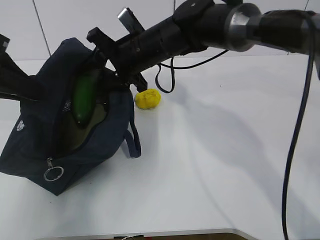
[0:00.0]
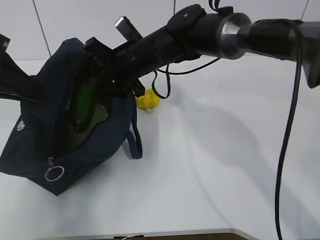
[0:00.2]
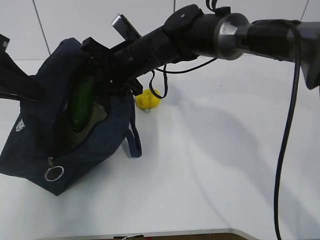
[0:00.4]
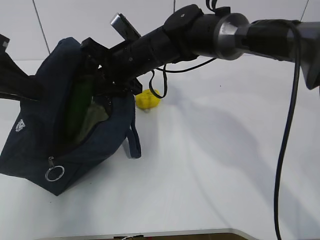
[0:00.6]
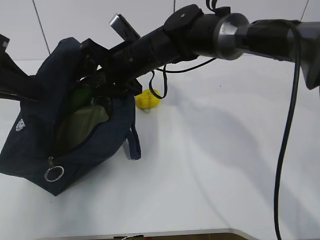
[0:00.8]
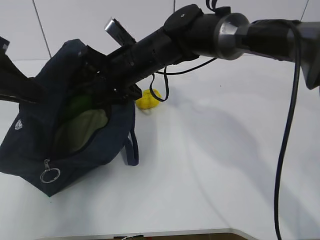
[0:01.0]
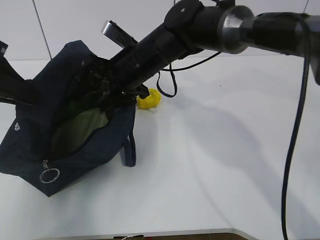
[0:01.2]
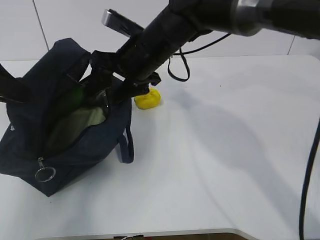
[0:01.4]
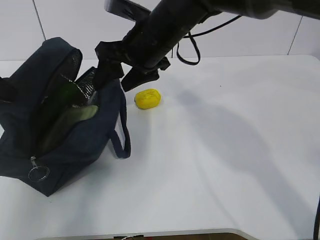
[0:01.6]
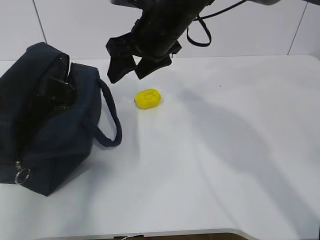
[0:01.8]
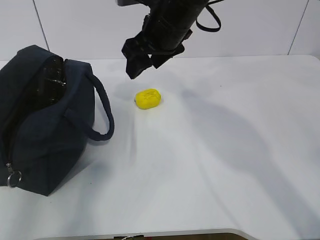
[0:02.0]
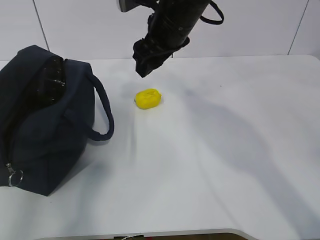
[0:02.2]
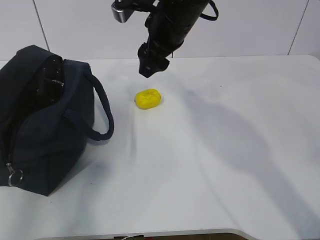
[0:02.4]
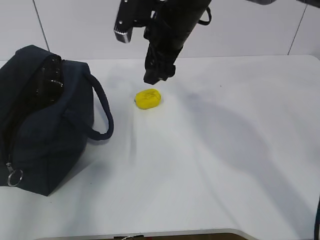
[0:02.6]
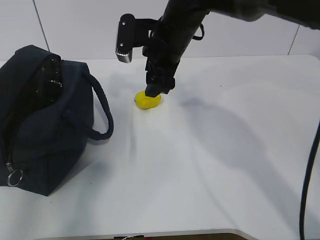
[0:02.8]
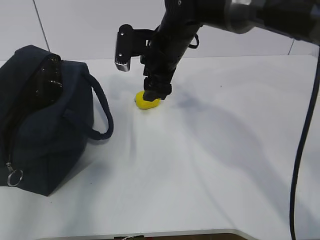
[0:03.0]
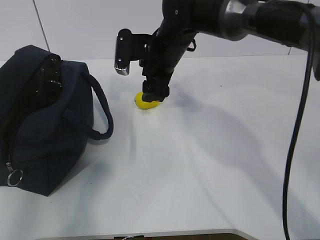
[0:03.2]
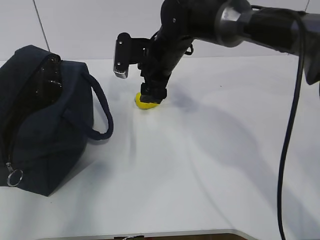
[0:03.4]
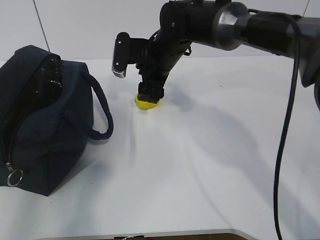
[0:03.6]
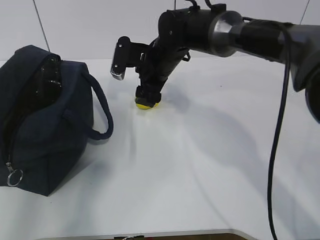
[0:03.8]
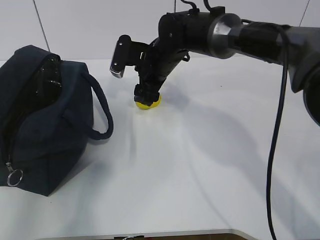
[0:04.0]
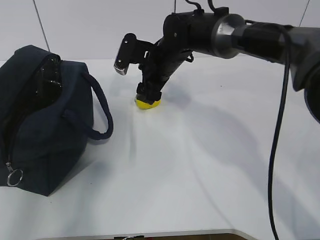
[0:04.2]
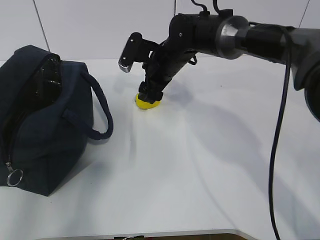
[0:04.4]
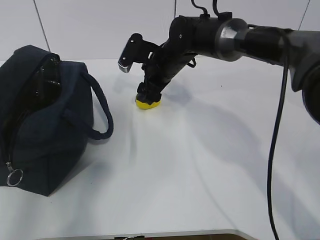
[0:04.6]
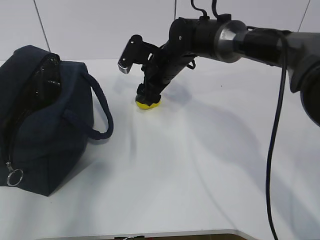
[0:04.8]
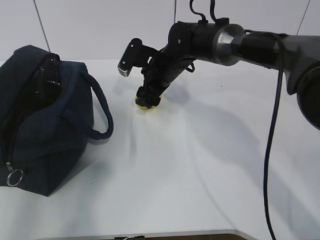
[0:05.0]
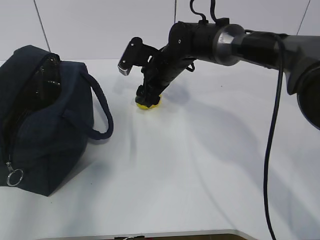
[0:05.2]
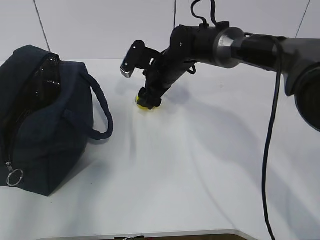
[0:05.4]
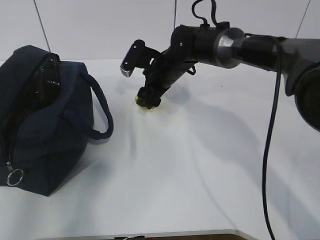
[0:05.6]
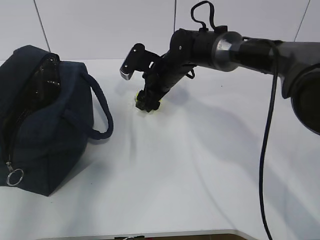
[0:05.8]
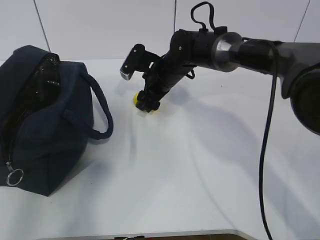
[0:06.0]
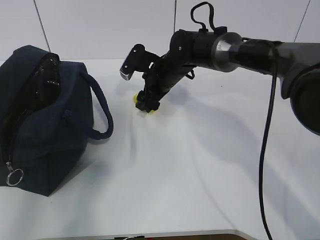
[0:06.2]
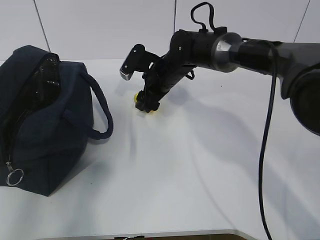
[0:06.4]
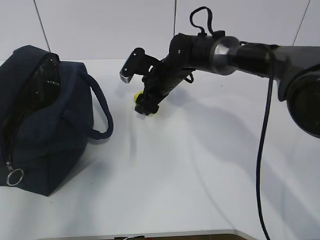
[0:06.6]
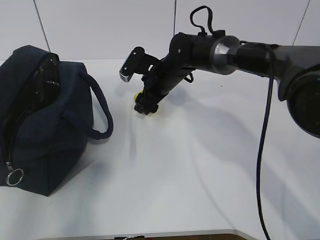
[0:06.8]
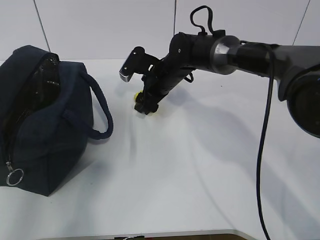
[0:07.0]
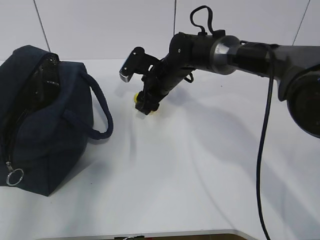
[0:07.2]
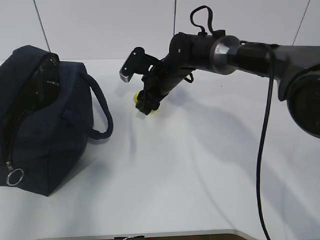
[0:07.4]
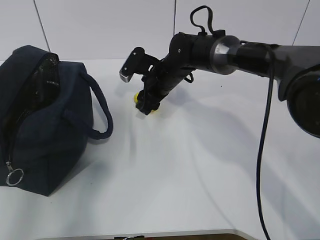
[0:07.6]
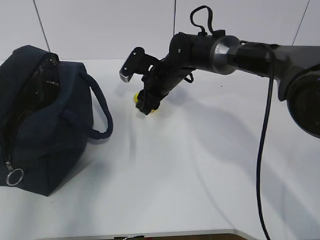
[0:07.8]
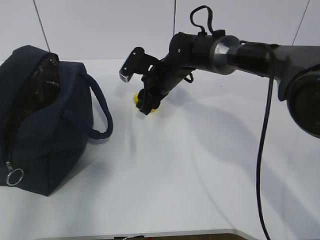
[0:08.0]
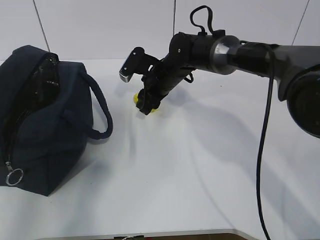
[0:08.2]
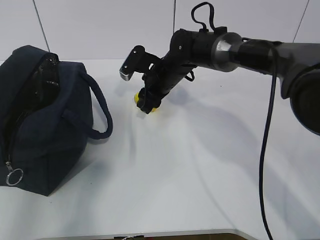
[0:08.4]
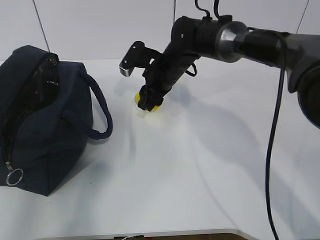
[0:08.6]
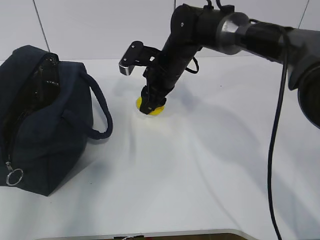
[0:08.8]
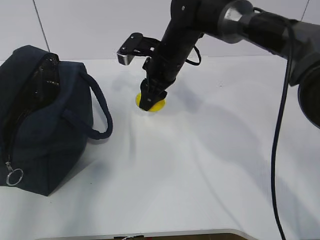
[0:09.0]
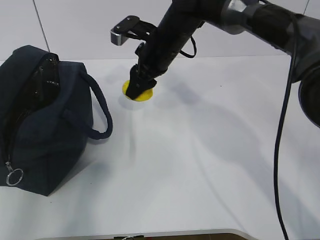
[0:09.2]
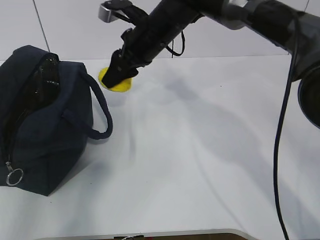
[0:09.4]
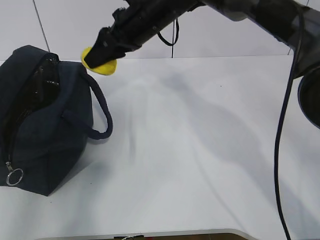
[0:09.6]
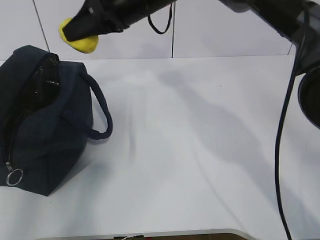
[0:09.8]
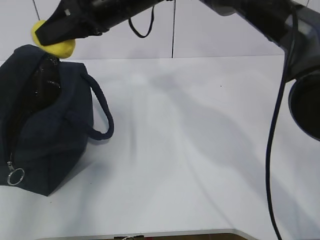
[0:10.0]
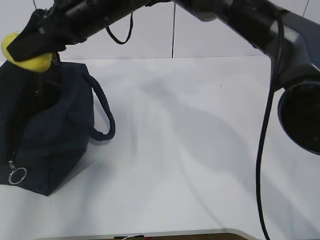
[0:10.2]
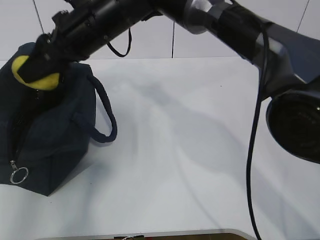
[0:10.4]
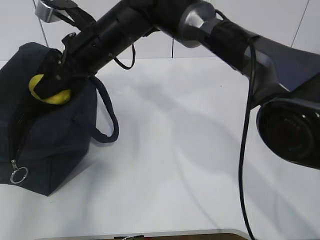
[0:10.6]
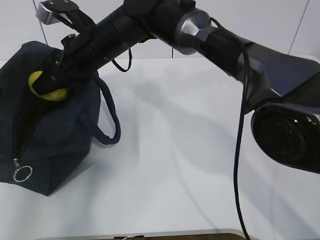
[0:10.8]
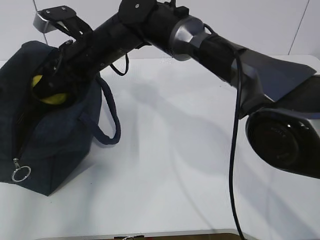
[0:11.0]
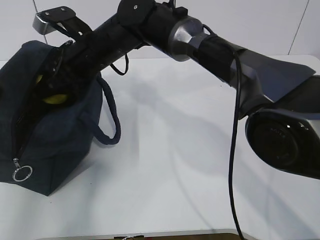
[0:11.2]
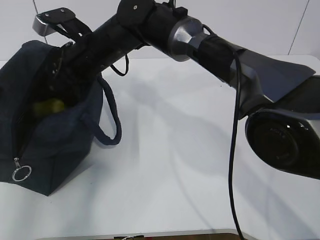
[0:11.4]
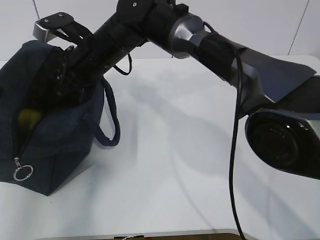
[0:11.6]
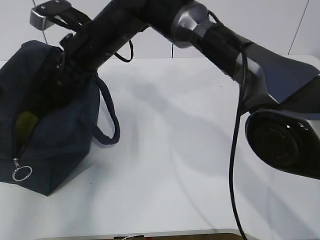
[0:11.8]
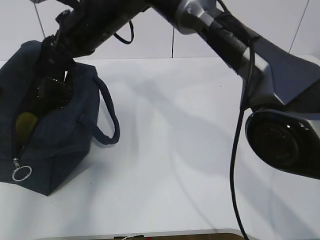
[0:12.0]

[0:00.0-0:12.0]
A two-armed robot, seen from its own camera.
Step, 0:00.0 to 0:02.0: Grab the lemon with your right hand.
Step, 0:05.6 to 0:08.4: Grab the lunch bag with your right hand.
Step, 0:08.6 to 0:11.6: Move the lunch bag to the right.
0:00.0 to 0:01.6: The right gripper changes place by approximately 5 cm.
0:01.6 to 0:03.0: The right gripper shifts by about 5 cm.
0:03.0 to 0:04.4: The right gripper ends up some 5 cm from where it was.
0:04.4 to 0:06.0: The grippers move only a little.
0:06.0 to 0:07.6: Both grippers stay about where they are.
0:07.6 to 0:09.0: The right gripper moves upward, about 5 cm.
0:09.0 to 0:10.4: The right gripper moves to the left, upward and backward, about 15 cm.

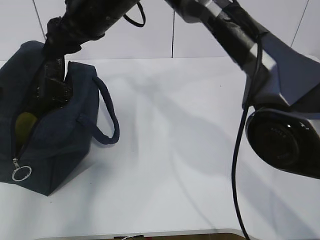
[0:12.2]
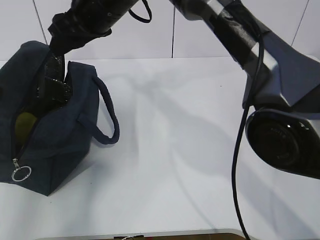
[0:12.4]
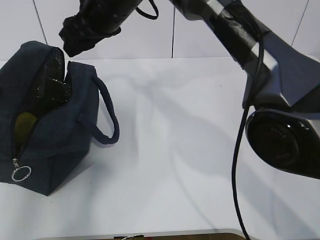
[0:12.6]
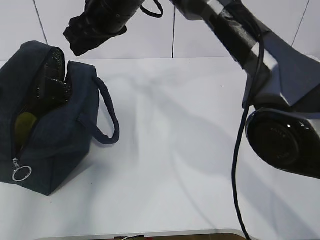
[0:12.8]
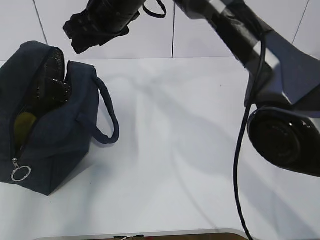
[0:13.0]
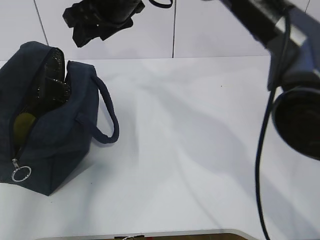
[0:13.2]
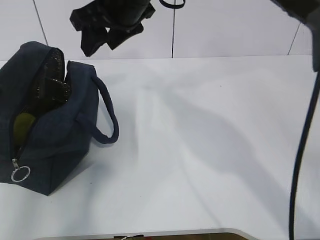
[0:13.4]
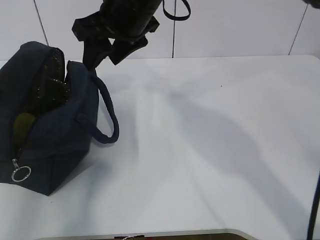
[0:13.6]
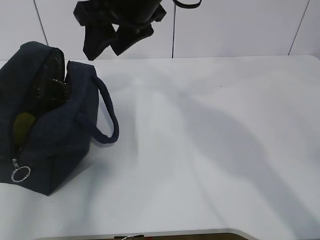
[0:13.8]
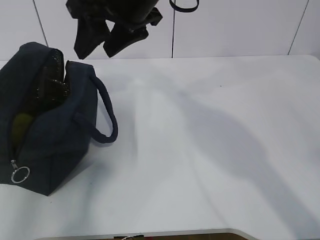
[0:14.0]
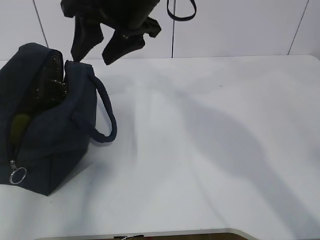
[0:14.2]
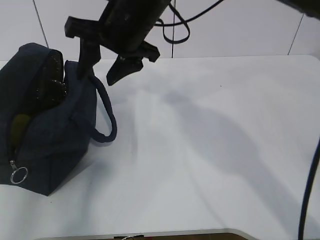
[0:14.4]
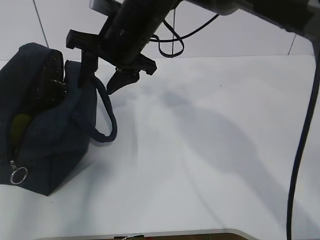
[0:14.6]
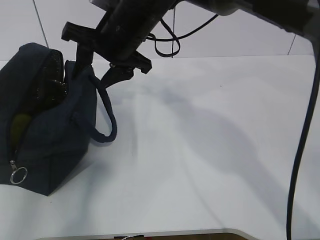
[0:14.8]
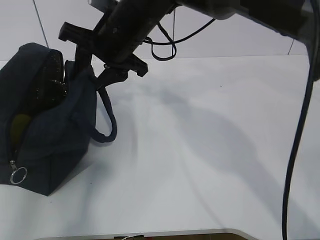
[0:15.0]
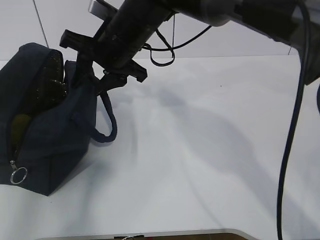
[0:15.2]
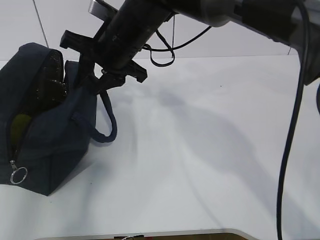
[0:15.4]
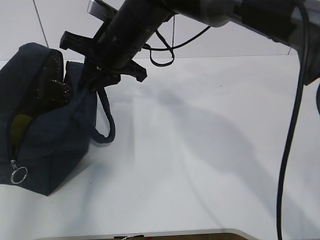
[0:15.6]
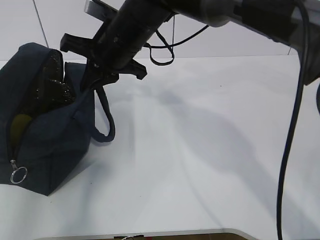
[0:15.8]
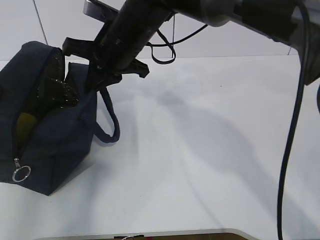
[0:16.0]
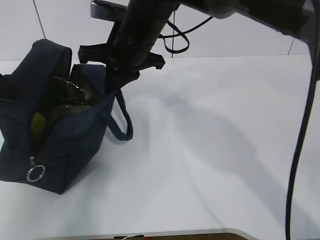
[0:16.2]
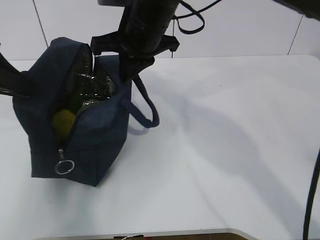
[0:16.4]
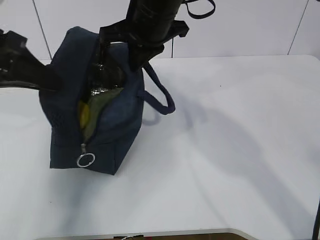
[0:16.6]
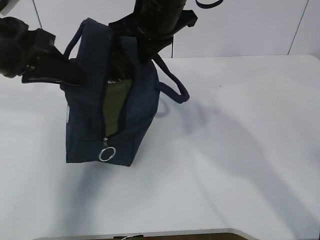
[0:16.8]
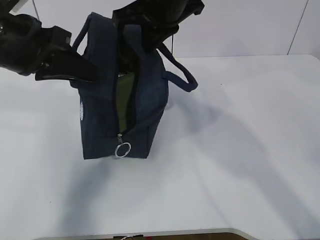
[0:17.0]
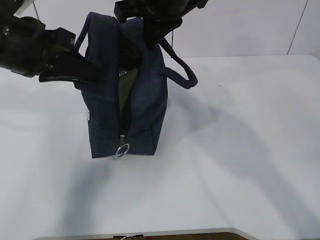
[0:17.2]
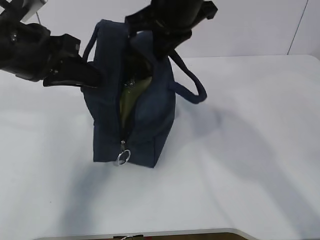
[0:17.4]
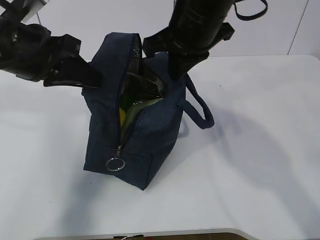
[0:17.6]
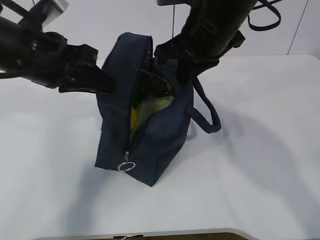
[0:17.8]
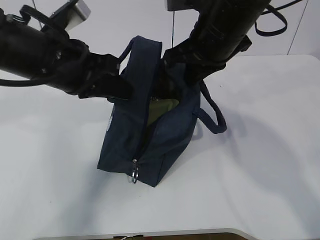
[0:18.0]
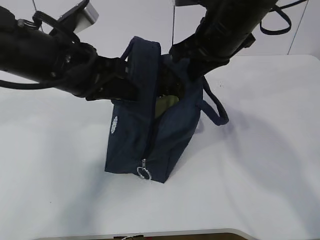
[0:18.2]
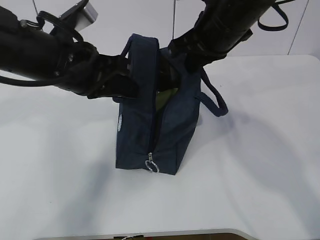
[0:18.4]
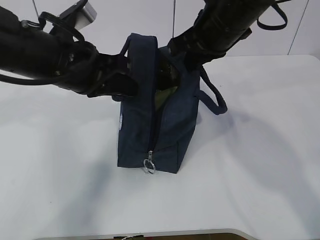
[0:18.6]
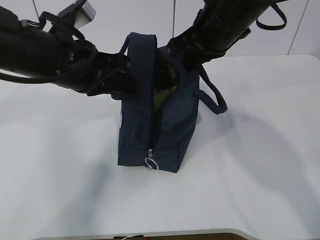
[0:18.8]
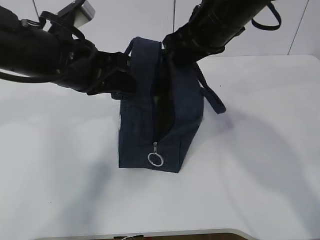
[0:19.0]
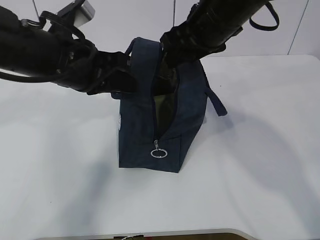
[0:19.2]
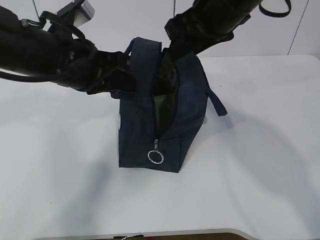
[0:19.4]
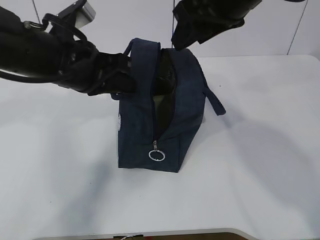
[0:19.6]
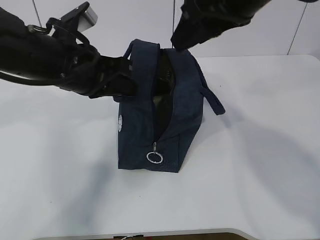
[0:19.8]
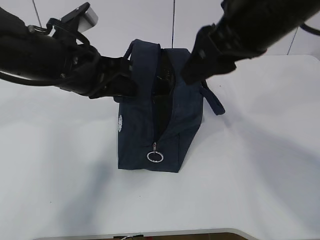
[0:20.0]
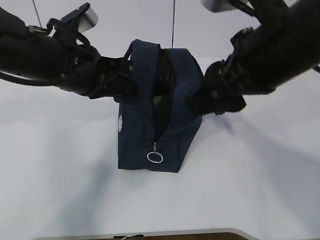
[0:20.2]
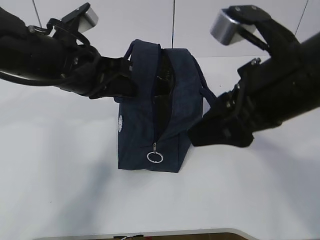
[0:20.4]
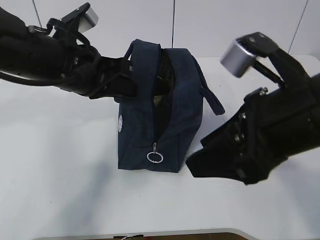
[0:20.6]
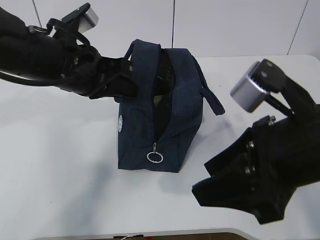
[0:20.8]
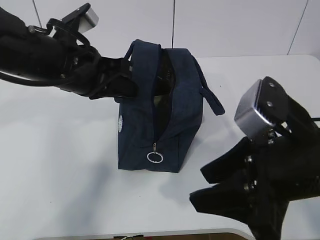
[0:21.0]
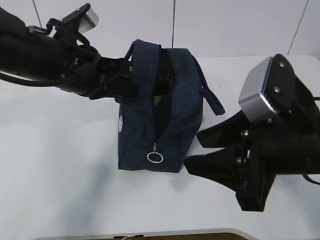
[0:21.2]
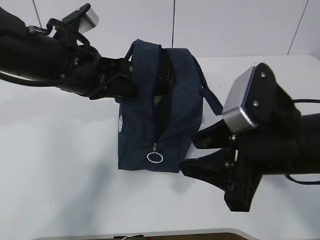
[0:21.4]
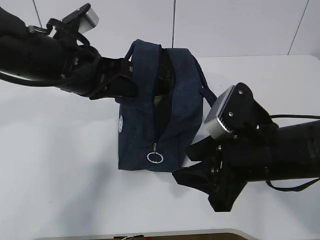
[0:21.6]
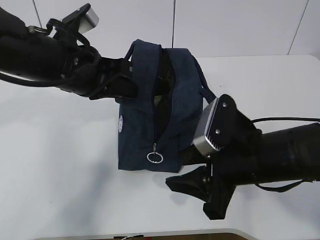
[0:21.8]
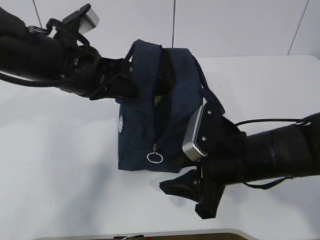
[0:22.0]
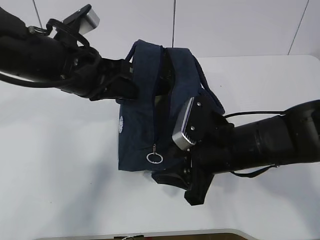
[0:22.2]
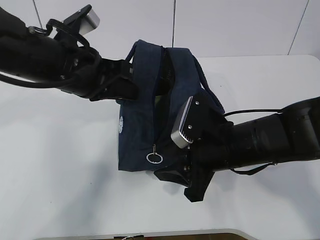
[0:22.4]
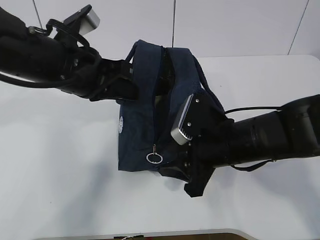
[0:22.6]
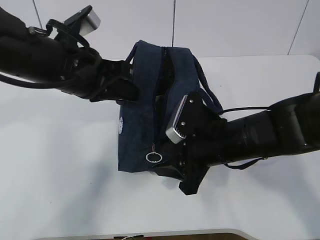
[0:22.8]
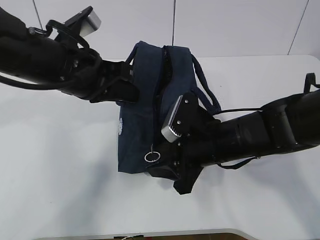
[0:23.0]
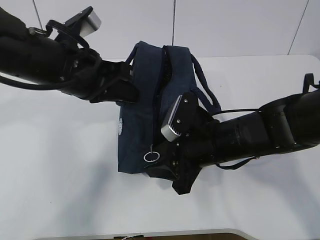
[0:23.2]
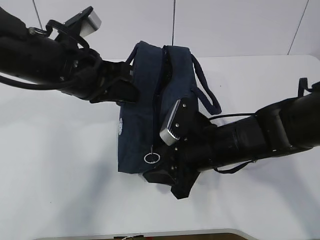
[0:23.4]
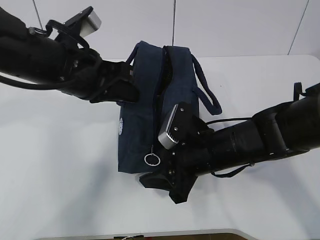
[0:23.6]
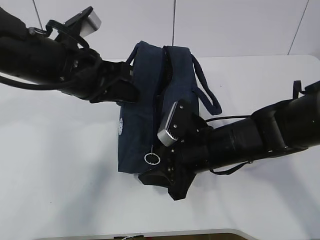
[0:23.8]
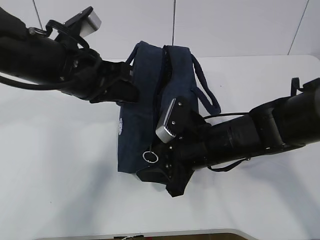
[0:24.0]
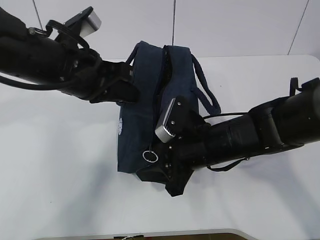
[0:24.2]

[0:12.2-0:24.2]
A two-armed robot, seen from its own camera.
Step, 0:12.2 to 0:21.2: Grab the lunch bag with your left hand.
0:12.2 to 0:13.8: The right gripper heads to the right, covering some 5 cm.
0:13.8 to 0:15.2: The right gripper heads downward, covering approximately 10 cm.
0:15.2 to 0:16.6: The right gripper changes place by some 5 cm, and closes. Meanwhile the left gripper moves to the right, some 10 cm.
0:16.6 to 0:18.2: Both grippers travel together to the right, about 10 cm.
0:18.2 to 0:19.8: The right gripper is displaced upward and backward by some 10 cm, and opens its fingers.
0:19.8 to 0:21.2: The right gripper travels downward and backward by roughly 15 cm.
0:21.2 to 0:22.6: The right gripper shifts roughly 10 cm downward and forward.
0:22.6 to 0:24.2: The grippers move only a little.
